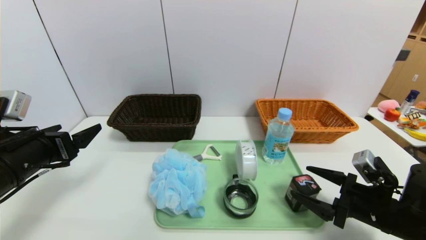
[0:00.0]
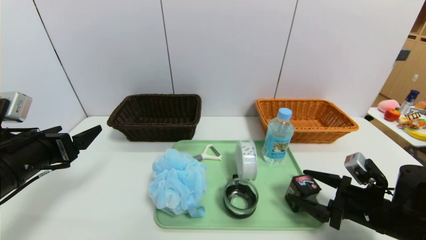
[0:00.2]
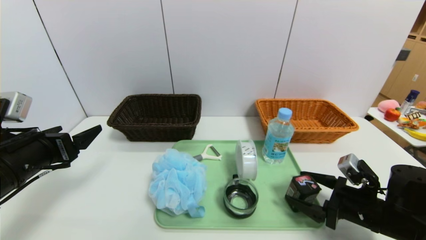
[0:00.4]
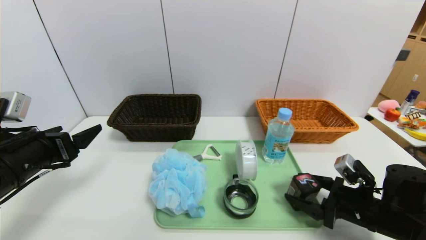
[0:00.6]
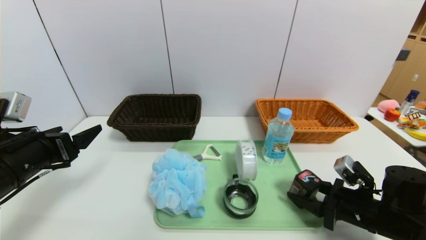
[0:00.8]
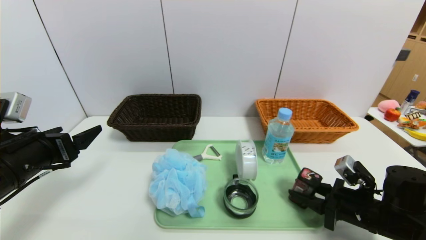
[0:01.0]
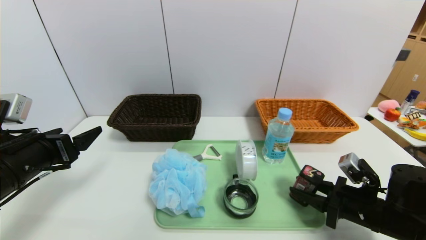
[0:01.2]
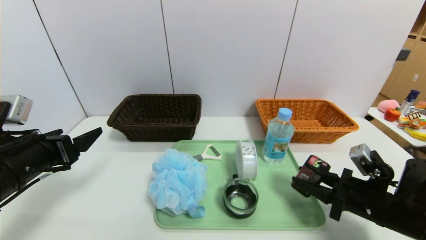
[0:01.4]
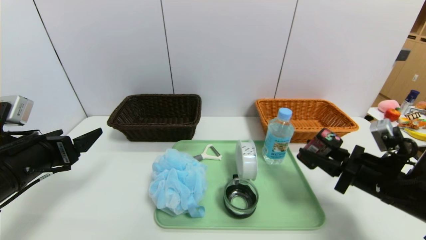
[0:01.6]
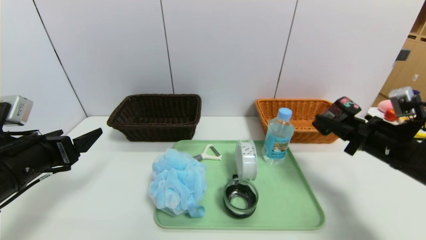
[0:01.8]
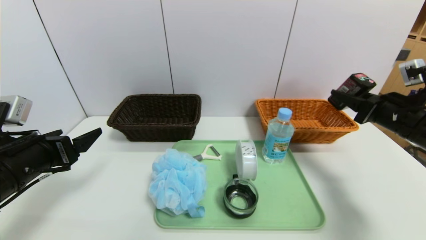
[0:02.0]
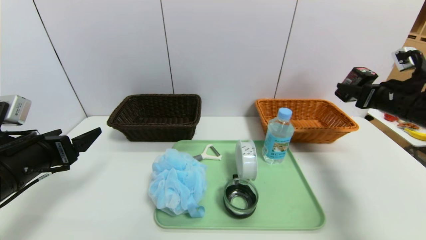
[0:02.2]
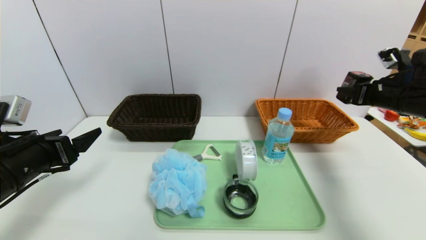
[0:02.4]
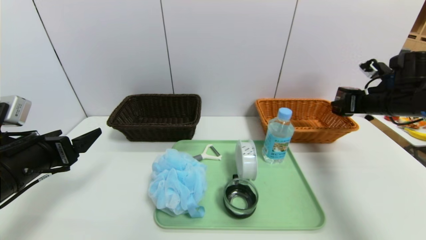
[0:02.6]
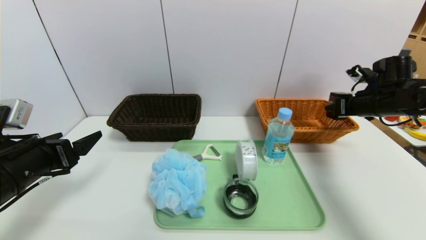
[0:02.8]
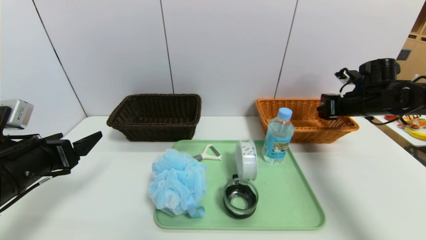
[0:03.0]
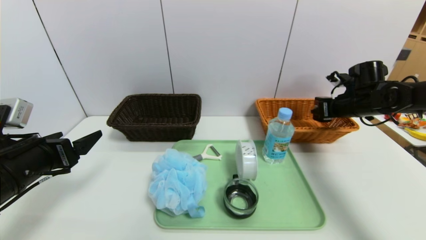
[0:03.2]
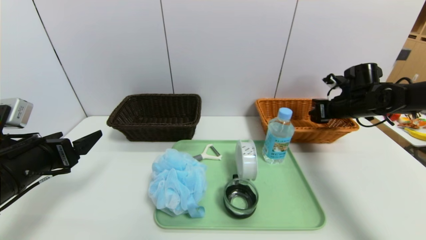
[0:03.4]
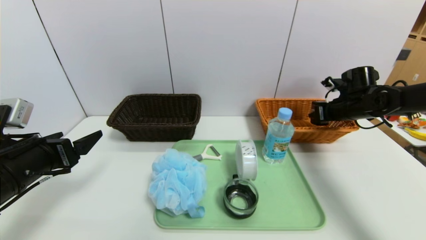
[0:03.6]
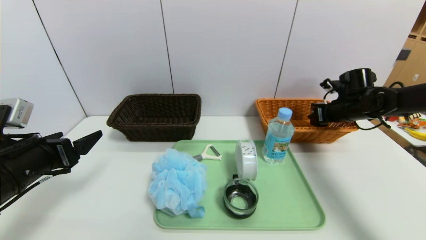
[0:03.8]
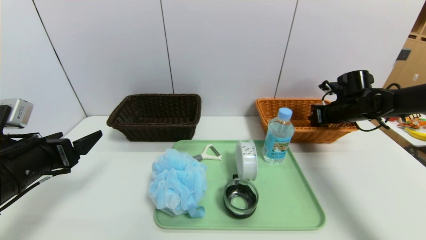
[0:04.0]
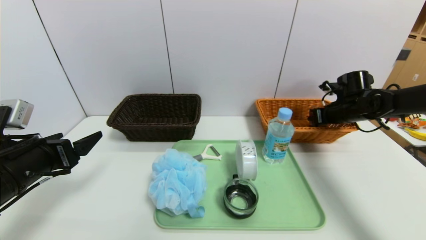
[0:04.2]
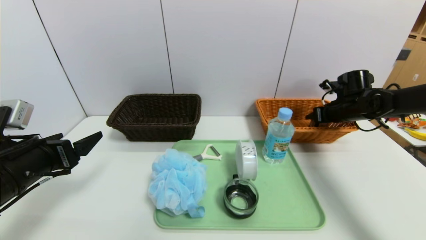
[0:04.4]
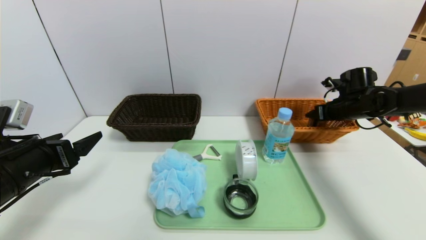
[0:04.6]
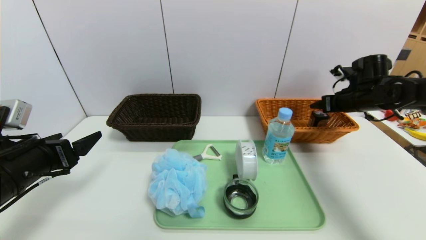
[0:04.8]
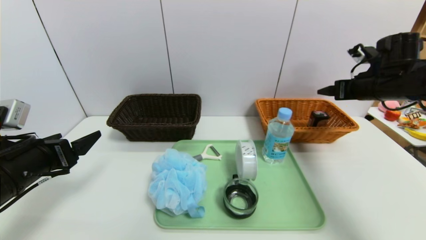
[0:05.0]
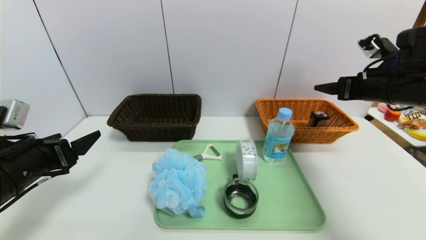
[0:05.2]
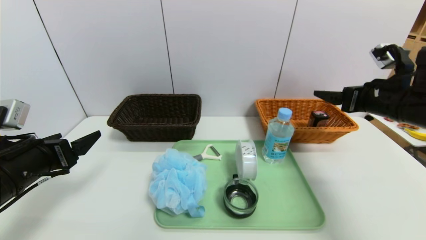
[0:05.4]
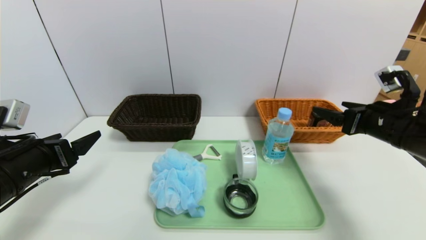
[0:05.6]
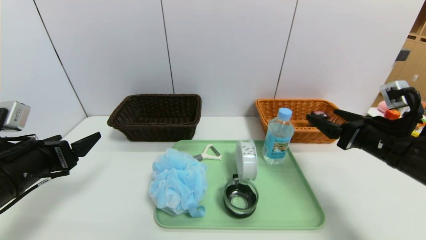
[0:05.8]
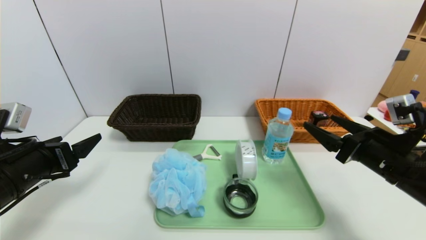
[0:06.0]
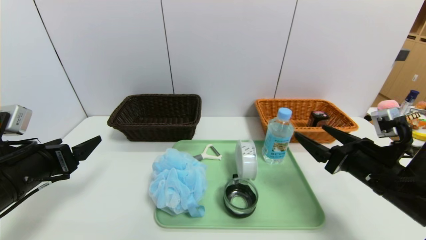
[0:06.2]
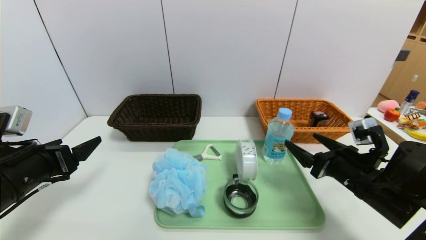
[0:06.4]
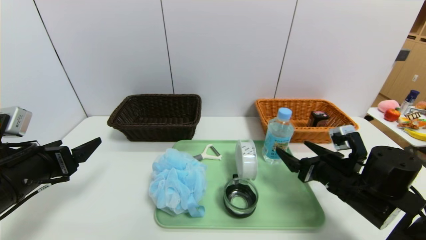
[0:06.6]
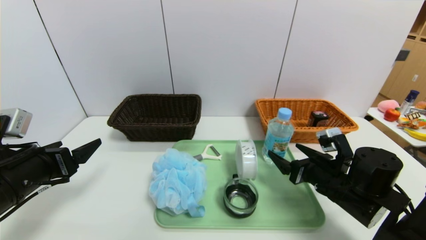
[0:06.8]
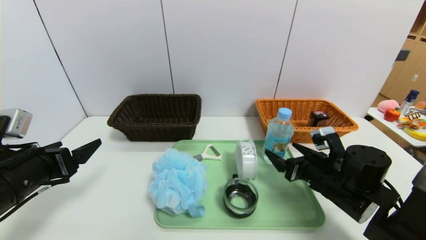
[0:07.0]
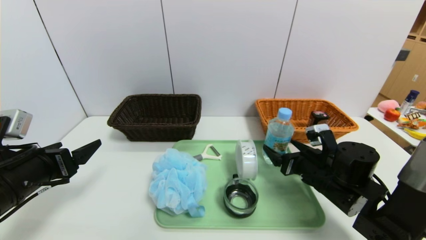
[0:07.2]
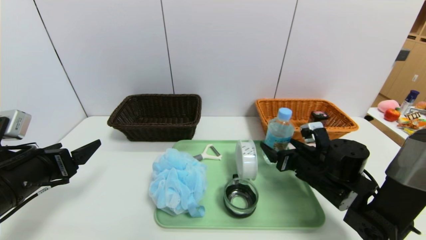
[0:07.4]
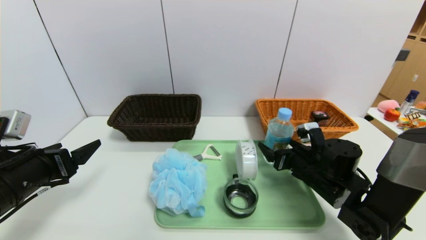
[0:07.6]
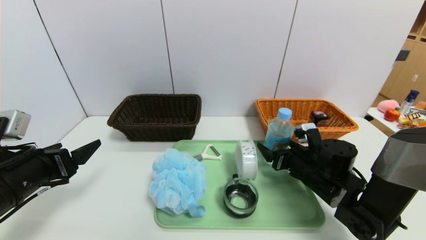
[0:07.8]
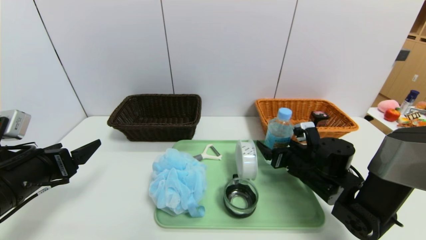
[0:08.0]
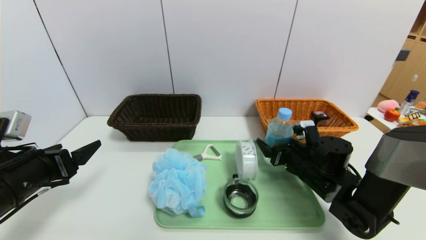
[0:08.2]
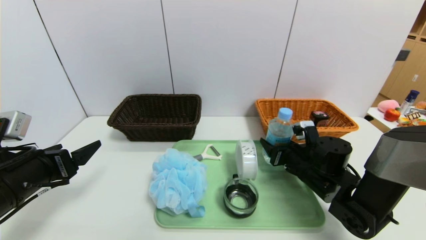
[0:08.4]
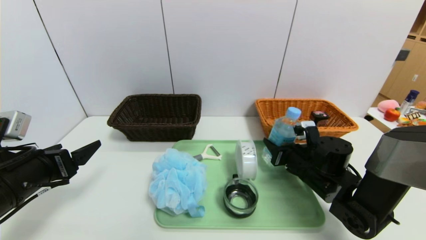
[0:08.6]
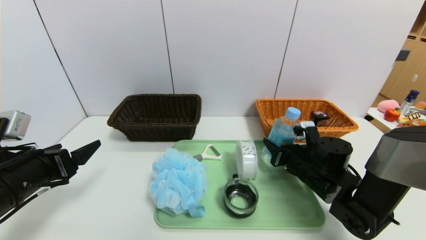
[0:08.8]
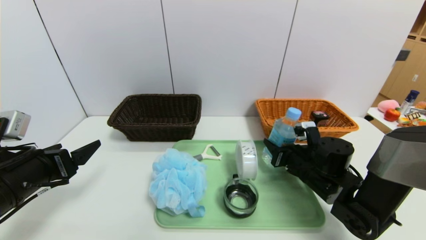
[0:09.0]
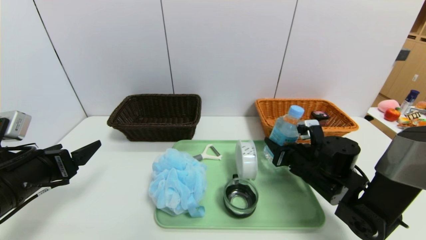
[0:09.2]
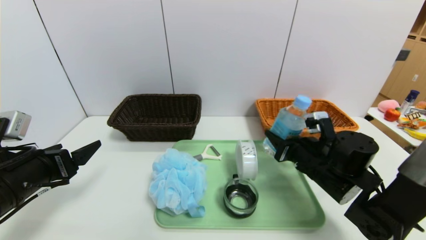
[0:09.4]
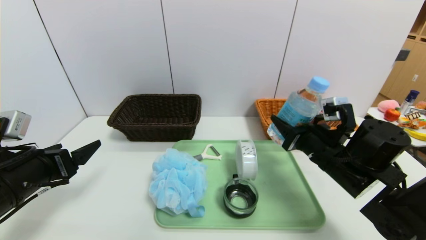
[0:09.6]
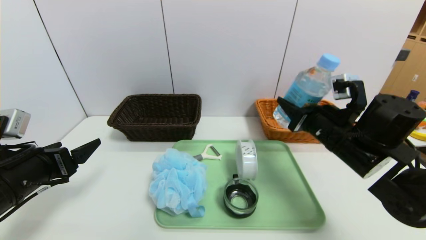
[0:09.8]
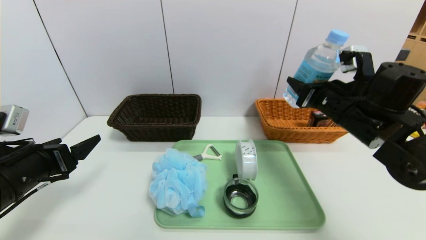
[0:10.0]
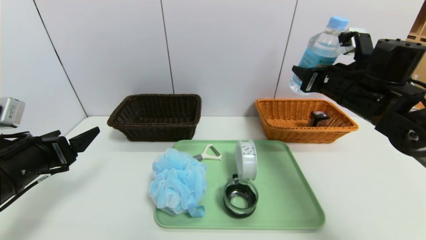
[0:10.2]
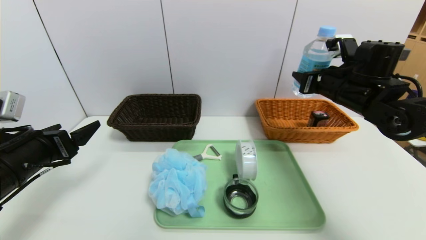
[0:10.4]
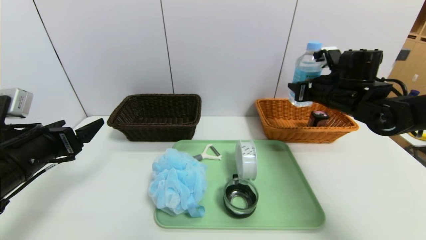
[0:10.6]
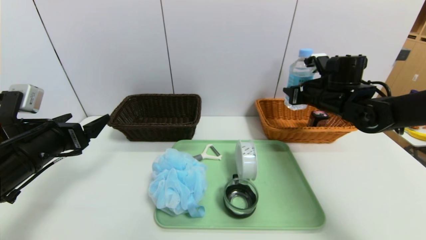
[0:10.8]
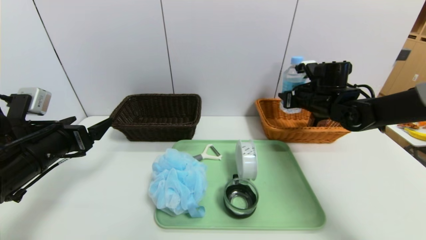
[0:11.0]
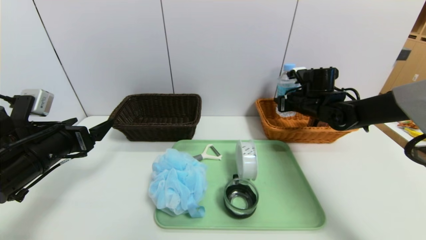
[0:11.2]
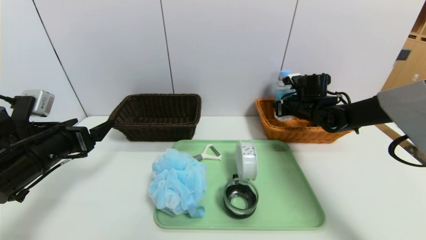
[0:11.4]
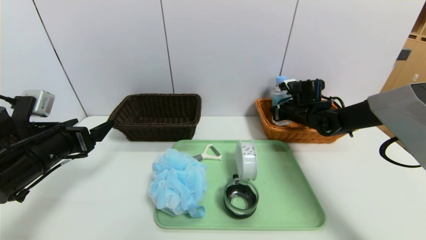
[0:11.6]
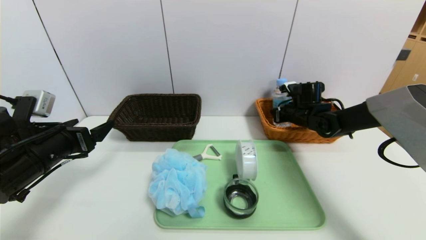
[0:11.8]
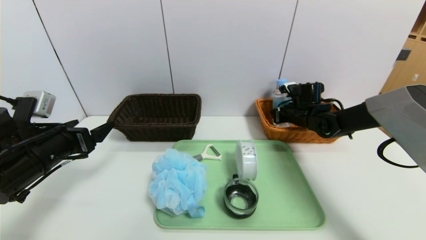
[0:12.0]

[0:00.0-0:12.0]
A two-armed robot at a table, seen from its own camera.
Task of the whole recording: place the food in the right basket with the right gripper, and place the non food items in the left basket with the left gripper.
Step, 0:00.0 to 0:04.6: Grasp the square chewing gum and put it in the right basket.
0:00.0 to 0:01.6: The right gripper heads upward, covering approximately 5 cm, and closes up.
0:01.6 to 0:03.0: The right gripper shifts about 20 cm forward.
0:03.0 to 0:04.4: The right gripper opens up.
0:04.4 to 0:06.0: The right gripper travels backward by approximately 25 cm, and opens.
0:06.0 to 0:07.6: The right gripper travels downward, forward and to the left by approximately 15 cm.
0:07.6 to 0:09.0: The right gripper closes up.
0:09.0 to 0:10.4: The right gripper heads upward, covering about 15 cm.
0:10.4 to 0:12.0: The right gripper travels downward and forward by roughly 15 cm.

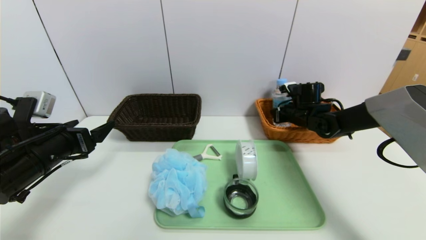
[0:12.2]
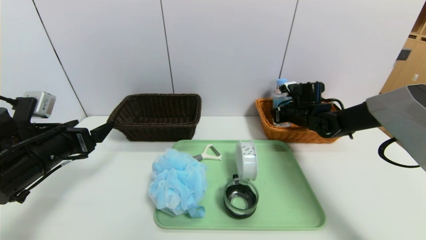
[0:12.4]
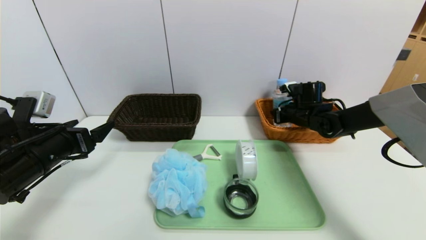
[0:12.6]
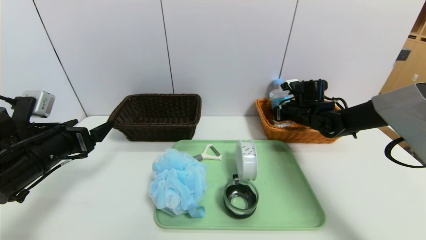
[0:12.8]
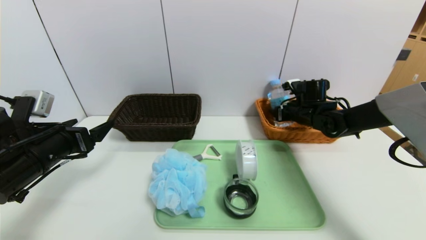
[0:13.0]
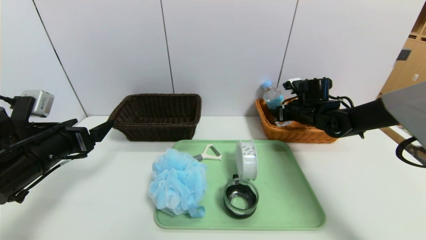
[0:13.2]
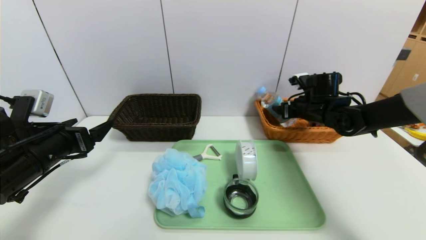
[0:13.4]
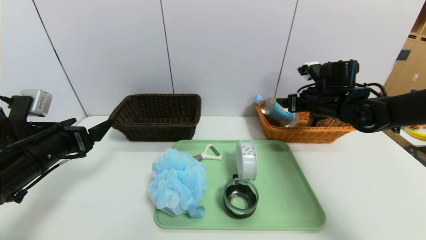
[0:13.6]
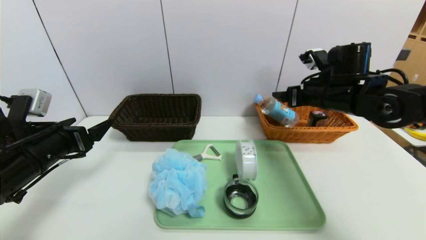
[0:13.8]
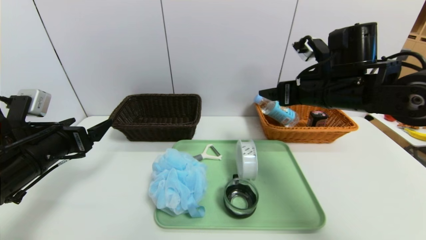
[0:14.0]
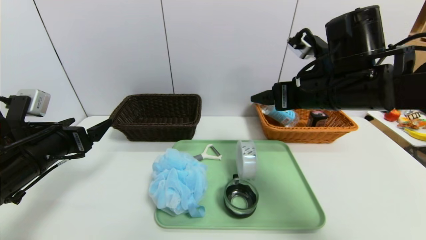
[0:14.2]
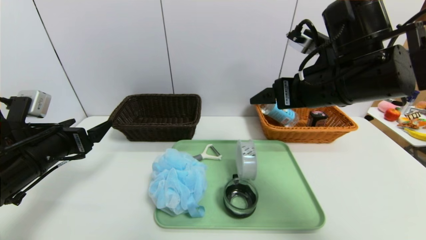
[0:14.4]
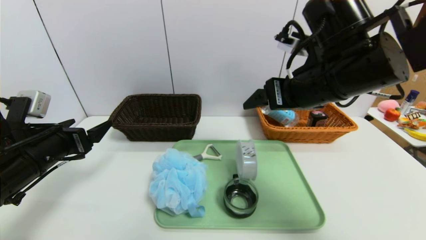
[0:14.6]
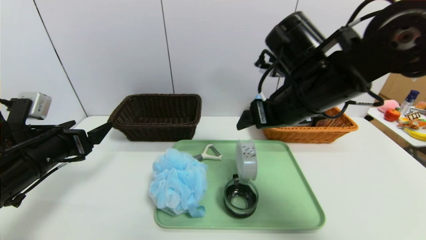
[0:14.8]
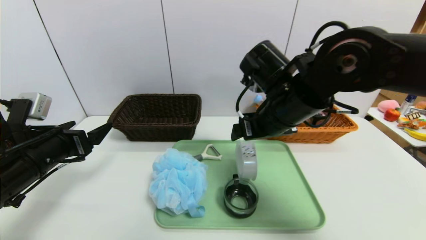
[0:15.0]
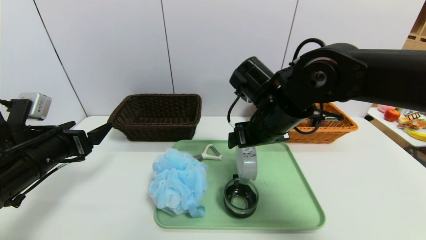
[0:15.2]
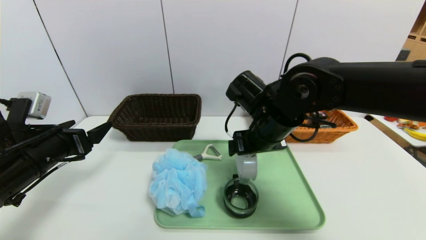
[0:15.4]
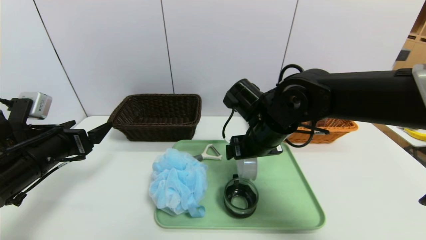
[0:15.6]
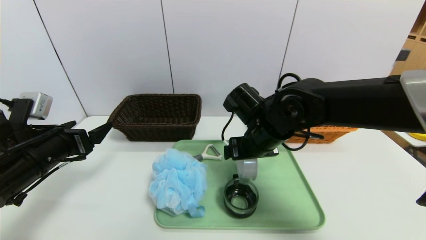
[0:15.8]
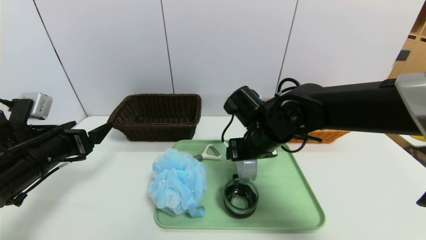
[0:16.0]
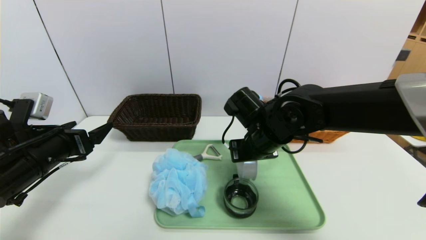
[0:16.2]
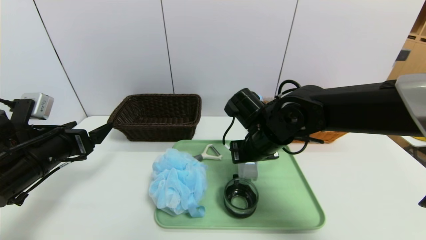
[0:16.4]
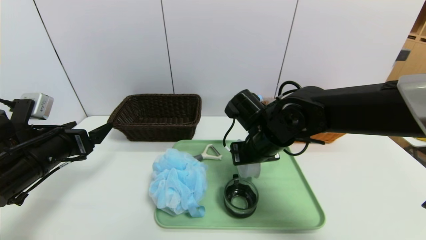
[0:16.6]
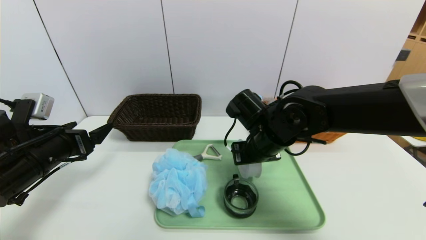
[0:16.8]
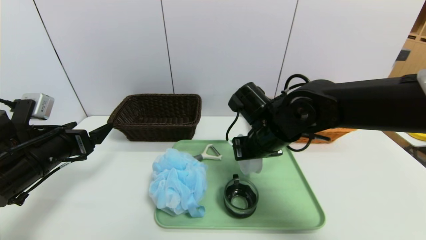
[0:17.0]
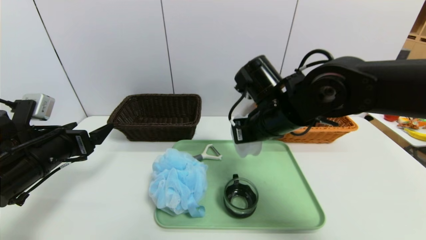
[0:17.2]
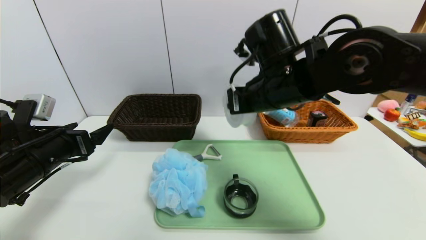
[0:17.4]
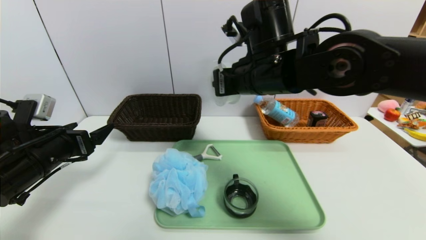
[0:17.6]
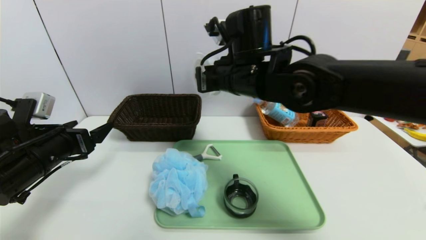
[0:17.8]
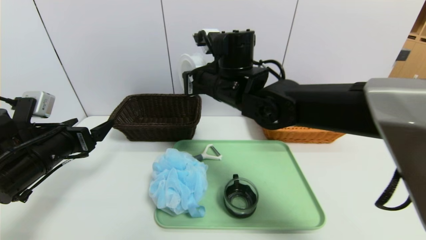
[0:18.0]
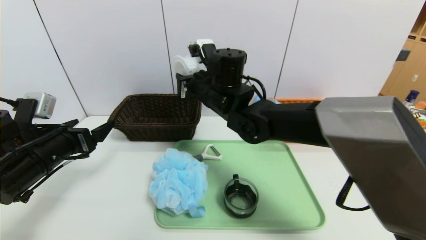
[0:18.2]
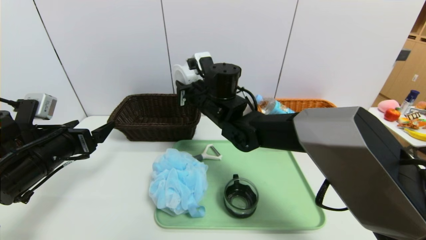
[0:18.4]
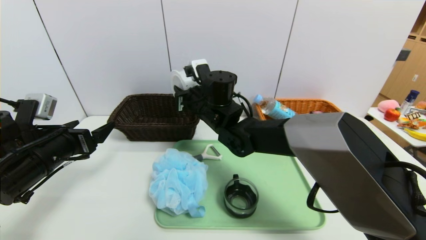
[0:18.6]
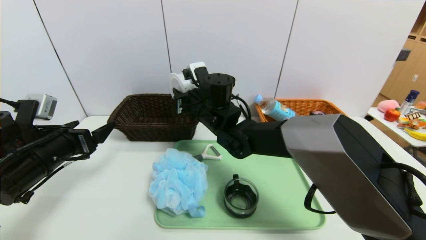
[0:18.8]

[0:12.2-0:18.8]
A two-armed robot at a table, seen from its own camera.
Task of the whole recording: place the food in the right basket with the right gripper, and place the non food items in the left basket with the left gripper.
0:12.2 to 0:13.8: The right gripper shifts some 15 cm upward and backward, and opens.
0:13.8 to 0:15.4: The right gripper heads to the left, covering roughly 15 cm.
0:15.4 to 0:17.2: The right gripper closes.
0:17.2 to 0:18.8: The right gripper goes some 15 cm to the left and forward.
